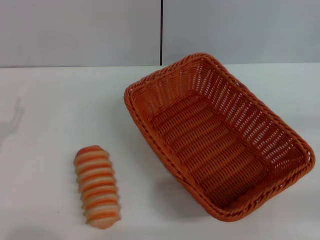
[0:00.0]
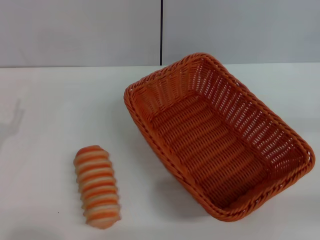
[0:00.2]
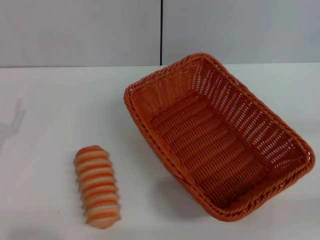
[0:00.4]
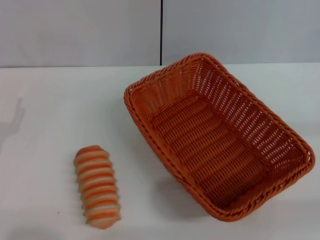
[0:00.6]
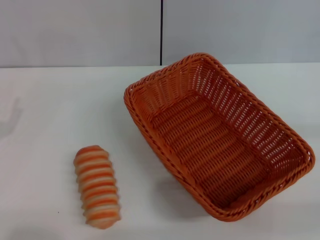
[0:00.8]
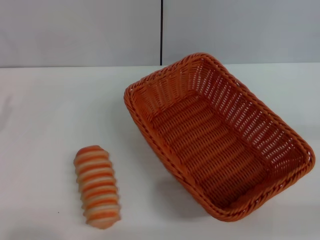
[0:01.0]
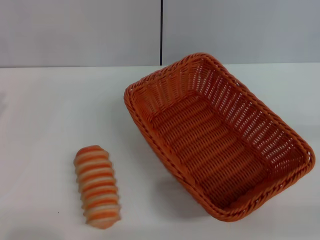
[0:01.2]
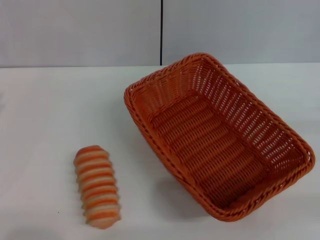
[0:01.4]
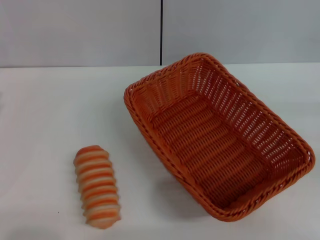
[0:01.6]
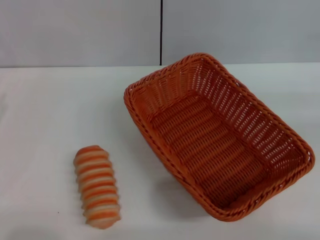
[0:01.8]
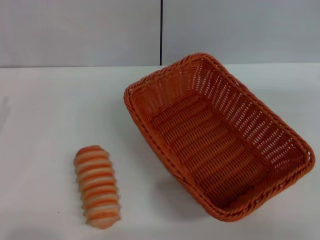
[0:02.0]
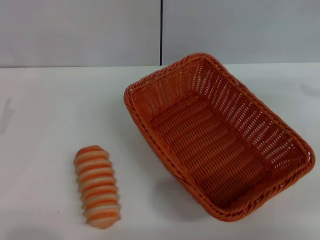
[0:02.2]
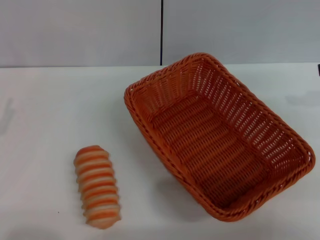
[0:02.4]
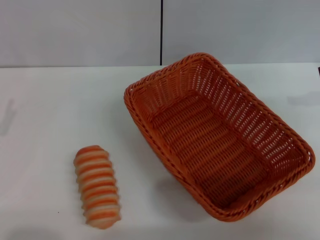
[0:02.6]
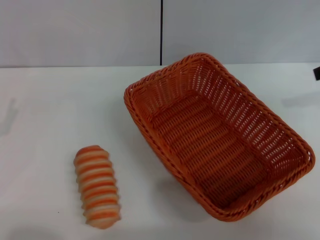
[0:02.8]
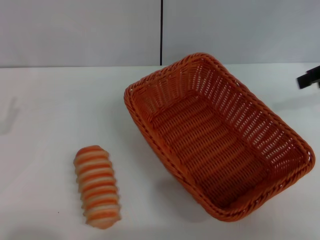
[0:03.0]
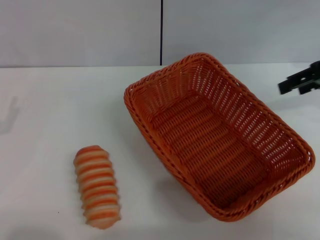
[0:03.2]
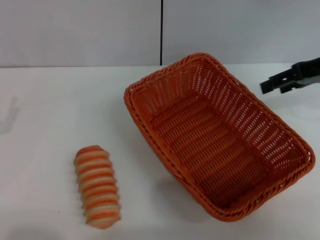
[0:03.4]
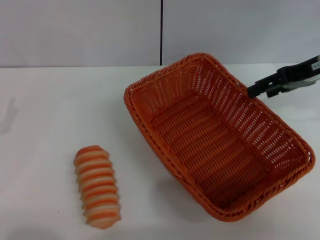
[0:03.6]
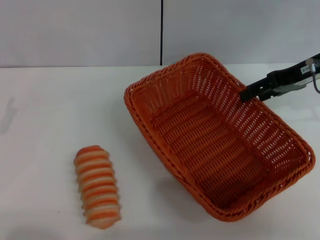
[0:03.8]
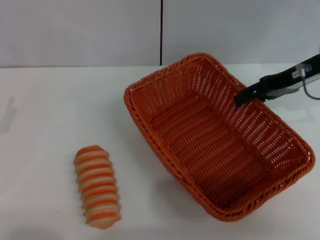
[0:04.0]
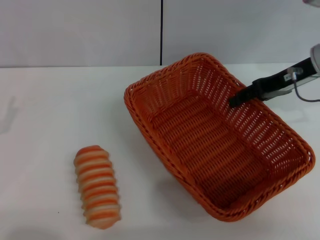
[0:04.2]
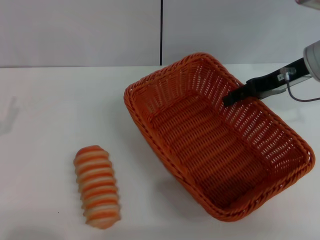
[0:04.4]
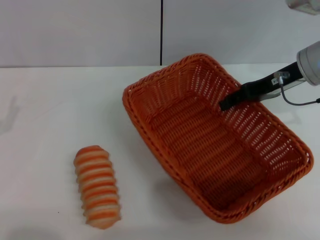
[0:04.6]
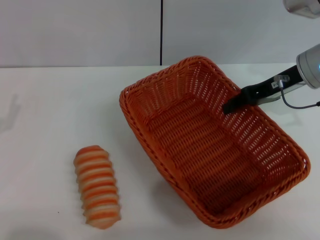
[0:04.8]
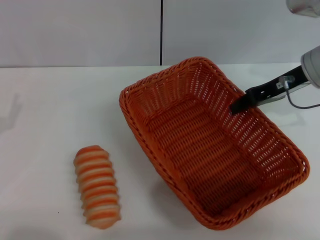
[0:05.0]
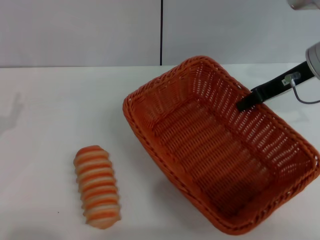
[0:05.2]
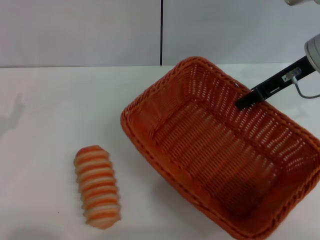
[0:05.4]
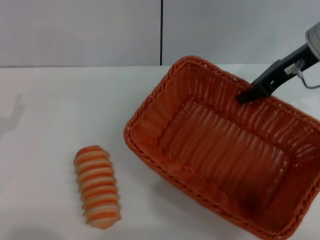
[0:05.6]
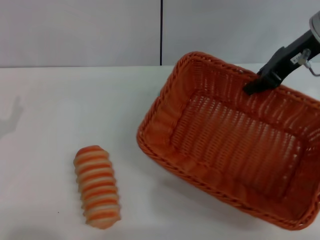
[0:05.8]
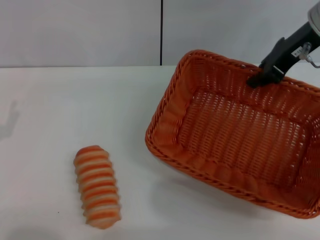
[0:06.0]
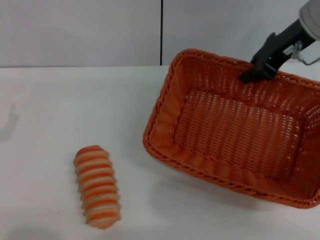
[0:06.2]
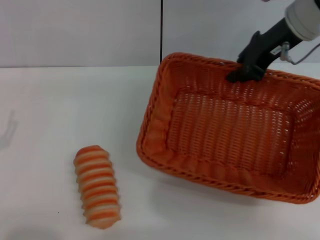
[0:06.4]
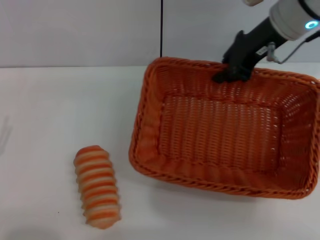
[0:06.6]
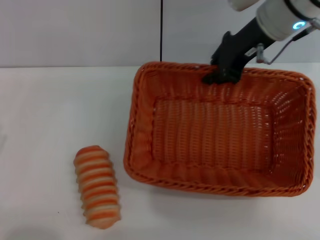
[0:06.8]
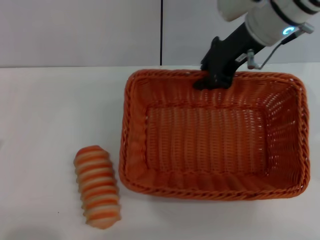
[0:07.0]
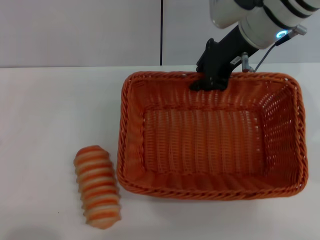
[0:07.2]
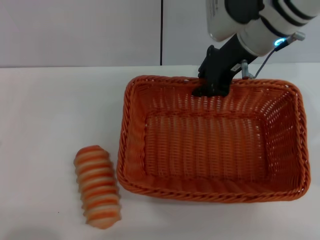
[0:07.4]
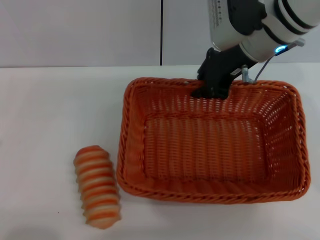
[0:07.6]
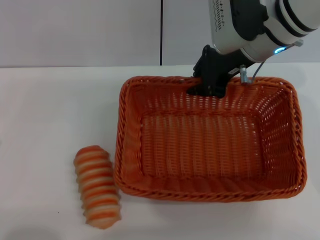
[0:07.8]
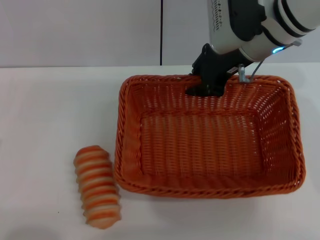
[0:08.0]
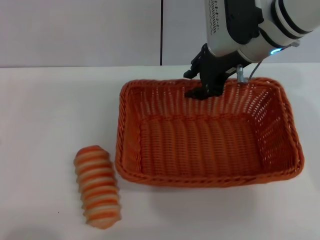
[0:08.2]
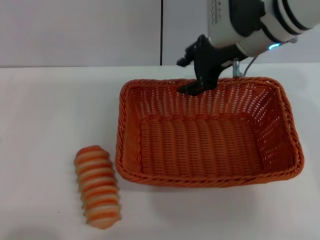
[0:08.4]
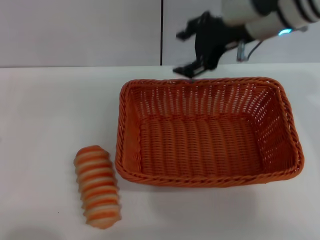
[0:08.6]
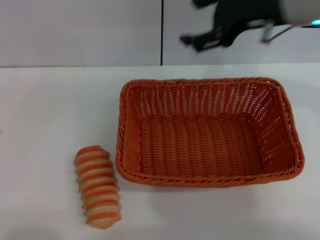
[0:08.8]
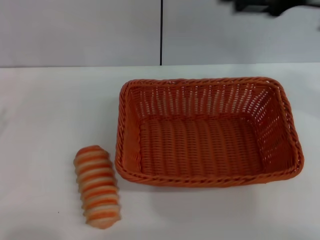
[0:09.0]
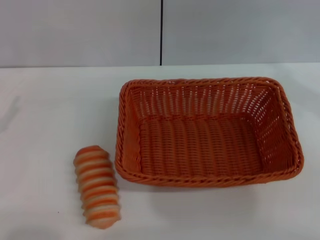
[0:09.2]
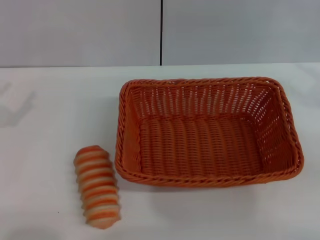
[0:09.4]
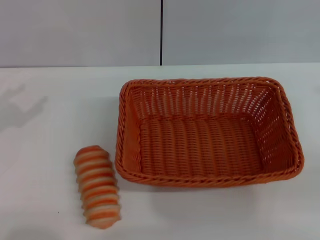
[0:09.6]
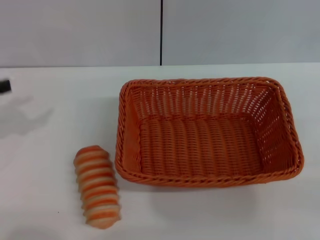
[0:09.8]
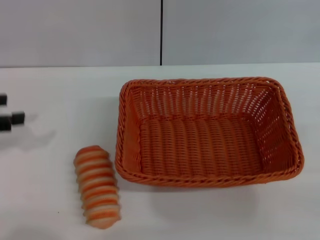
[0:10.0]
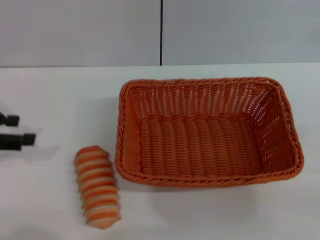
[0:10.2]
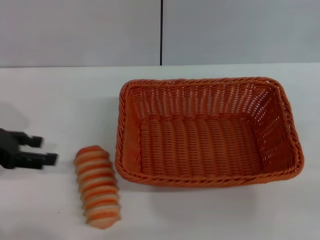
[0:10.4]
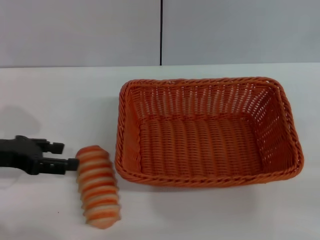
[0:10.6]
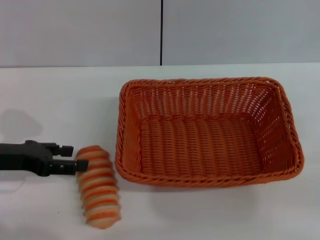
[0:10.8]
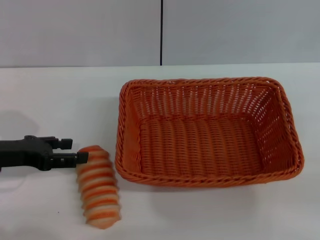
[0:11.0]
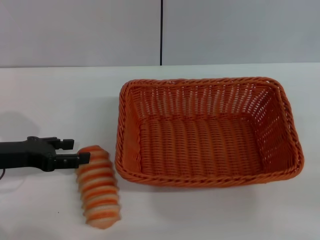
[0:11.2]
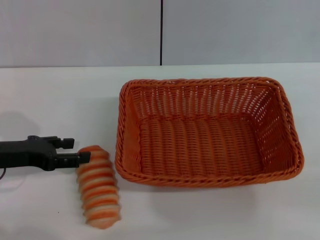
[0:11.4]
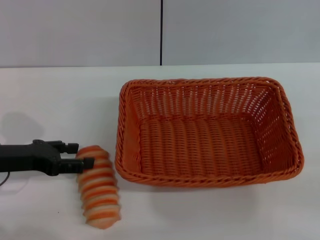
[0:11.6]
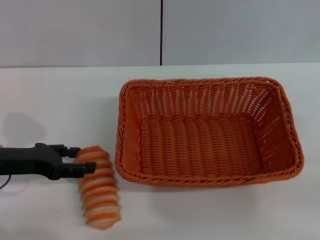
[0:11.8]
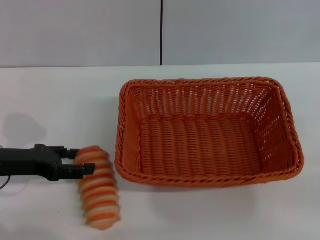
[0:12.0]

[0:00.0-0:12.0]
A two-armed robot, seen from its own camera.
Step, 0:00.0 to 0:06.0: Pick up the light basket with the right gripper.
Step, 0:06.2 to 0:08.6: Place the light basket in the center of view with the right gripper.
0:01.6 to 0:03.0: The right gripper is displaced forward, to the left and upward by about 20 cm.
0:03.0 to 0:04.4: The right gripper goes approximately 10 cm to the left and downward.
0:04.4 to 0:06.0: The right gripper goes roughly 5 cm upward, and closes its fingers.
0:06.0 to 0:07.6: The left gripper shifts approximately 5 cm backward. Meanwhile the right gripper is displaced to the left by about 10 cm.
0:07.6 to 0:09.0: The left gripper changes place by approximately 5 cm, while the right gripper shifts roughly 15 cm to the right, backward and upward, and opens up.
0:09.0 to 0:10.4: The right gripper is displaced to the right, downward and backward by roughly 25 cm. Meanwhile the left gripper moves forward and upward, approximately 10 cm.
0:10.4 to 0:12.0: The left gripper travels downward by roughly 5 cm.

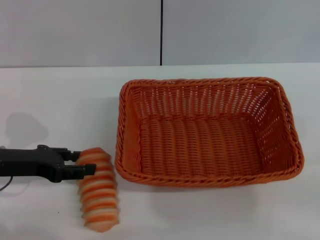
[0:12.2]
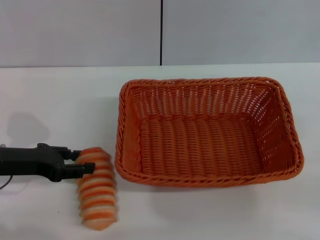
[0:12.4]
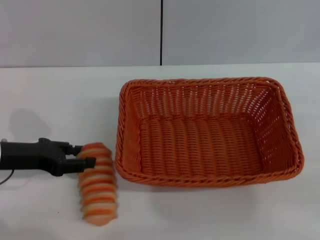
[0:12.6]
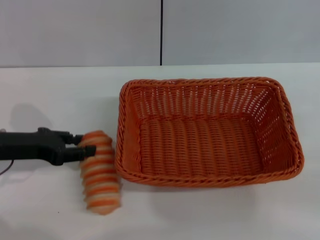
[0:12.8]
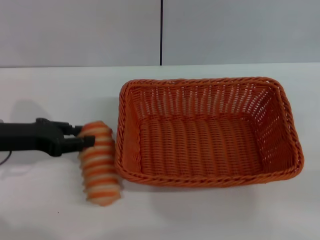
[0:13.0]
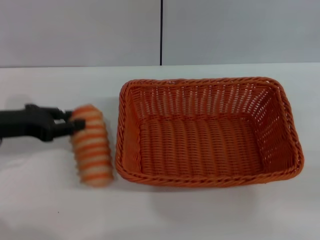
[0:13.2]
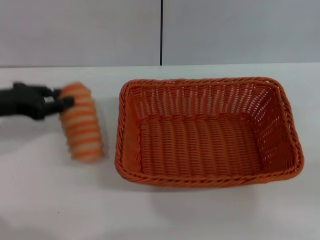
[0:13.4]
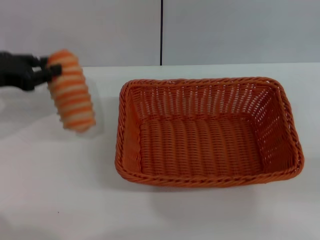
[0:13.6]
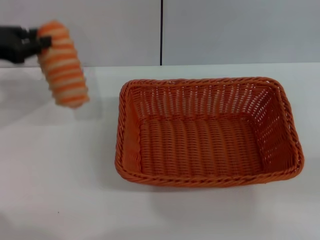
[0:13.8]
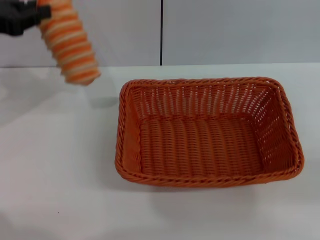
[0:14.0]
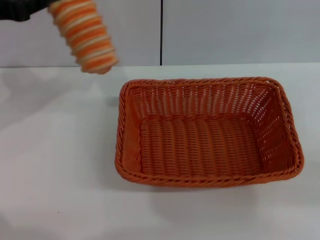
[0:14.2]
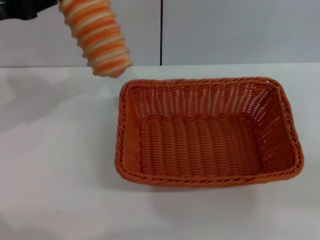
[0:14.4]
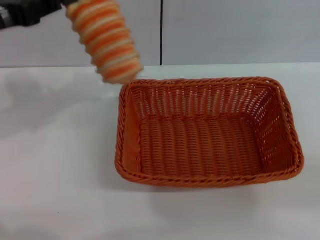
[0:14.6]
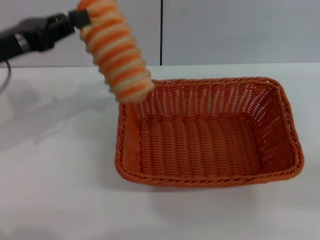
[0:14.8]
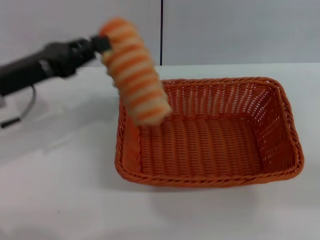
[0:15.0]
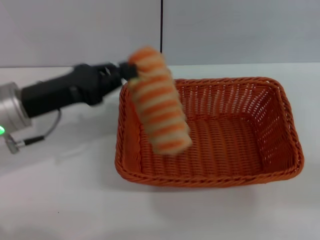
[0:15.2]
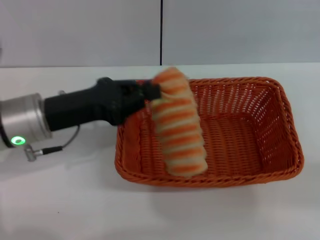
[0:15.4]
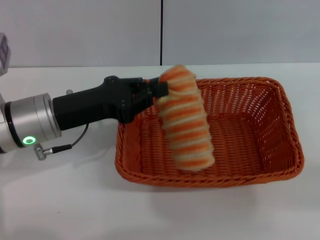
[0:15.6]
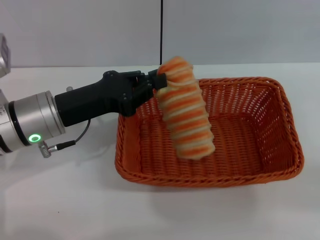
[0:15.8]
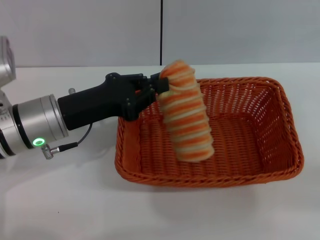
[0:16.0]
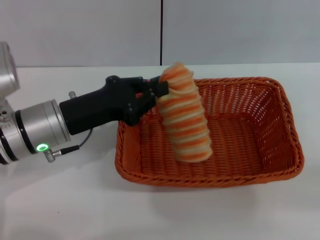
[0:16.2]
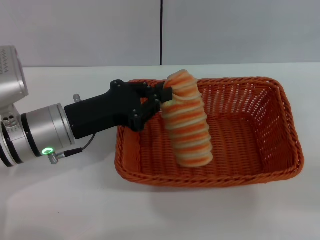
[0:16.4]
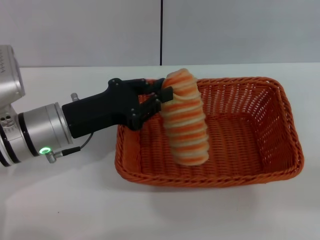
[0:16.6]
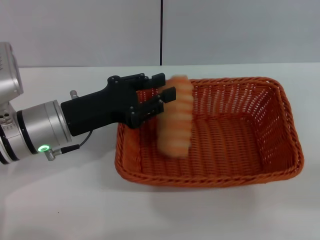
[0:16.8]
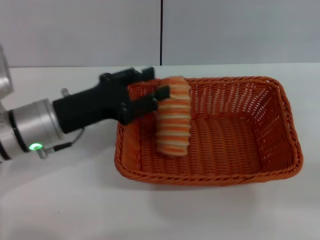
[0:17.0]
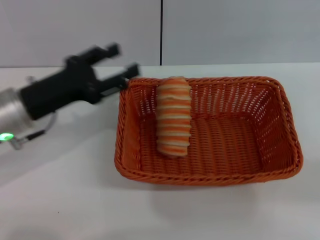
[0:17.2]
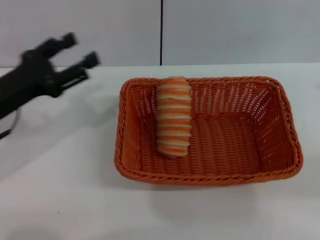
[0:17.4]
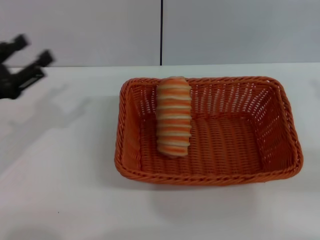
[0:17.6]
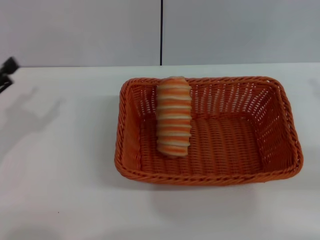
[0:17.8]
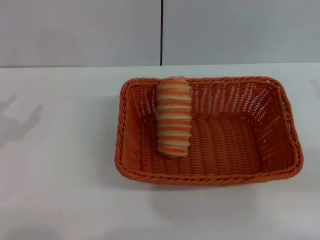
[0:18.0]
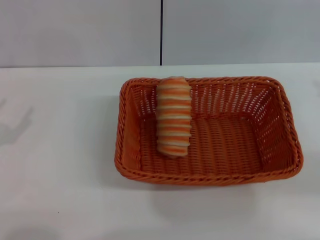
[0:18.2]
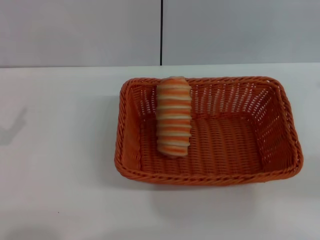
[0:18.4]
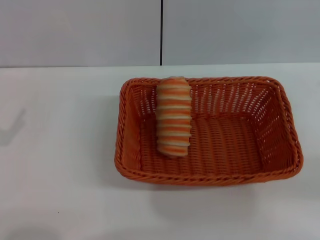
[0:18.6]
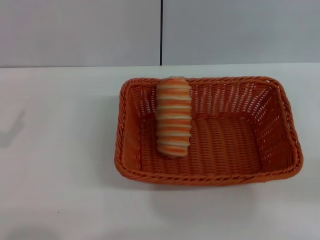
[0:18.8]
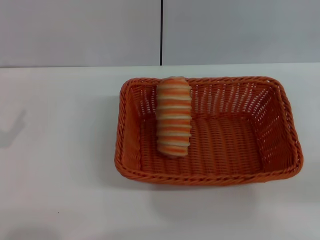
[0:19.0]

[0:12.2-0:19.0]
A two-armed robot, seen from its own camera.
Step, 0:14.0 to 0:17.2: Place the long bread into the light basket with the left gripper.
0:12.2 to 0:13.6: The left gripper heads upward and forward, covering some 10 cm, and closes.
0:13.6 to 0:15.0: The left gripper shifts roughly 5 cm to the right, and reaches roughly 5 cm upward, then returns.
0:15.0 to 0:16.2: The left gripper moves to the right, roughly 5 cm.
0:16.2 to 0:17.6: The left gripper shifts about 15 cm to the left, and opens its fingers.
0:17.6 to 0:19.0: The left gripper is displaced backward and to the left by about 10 cm.
